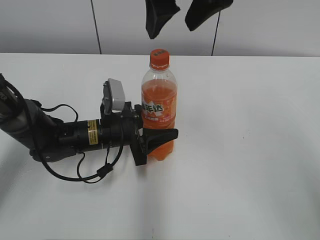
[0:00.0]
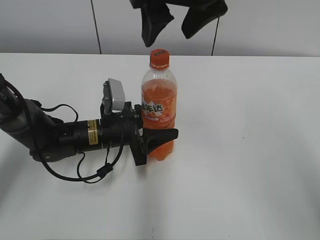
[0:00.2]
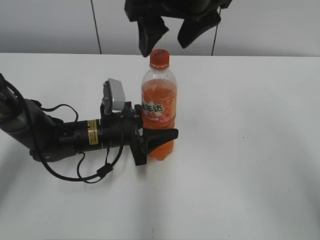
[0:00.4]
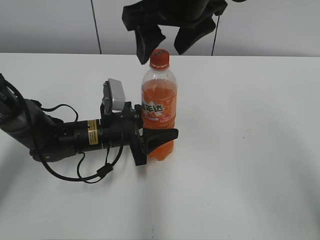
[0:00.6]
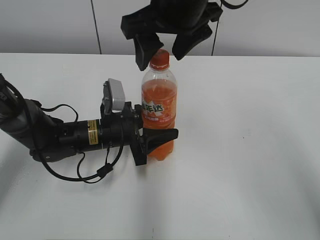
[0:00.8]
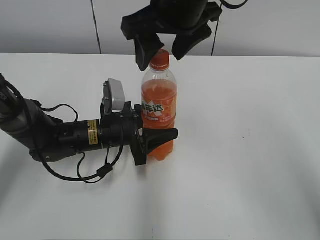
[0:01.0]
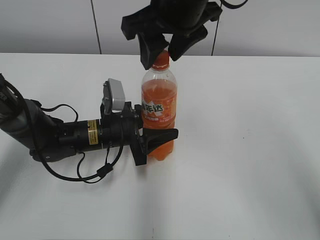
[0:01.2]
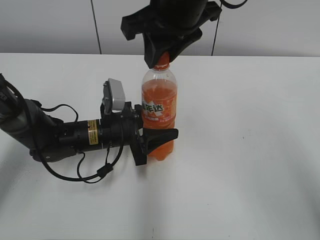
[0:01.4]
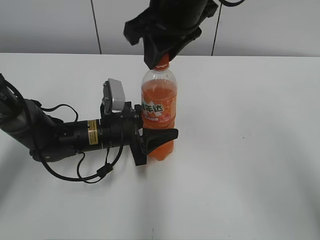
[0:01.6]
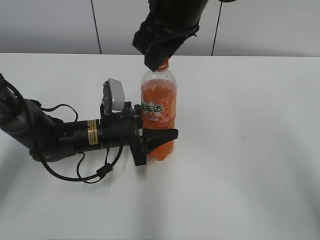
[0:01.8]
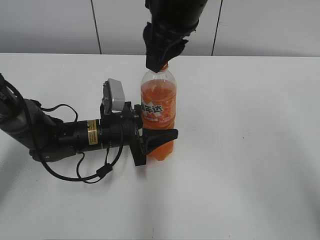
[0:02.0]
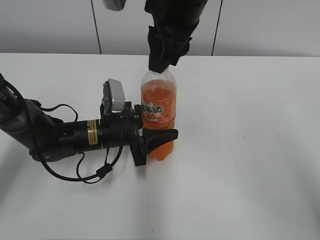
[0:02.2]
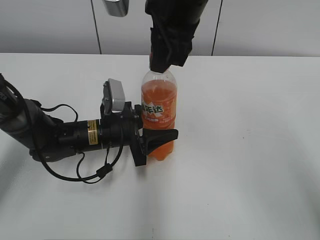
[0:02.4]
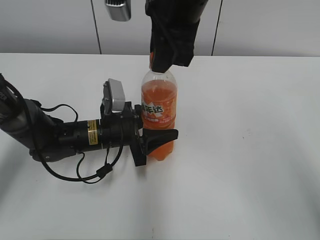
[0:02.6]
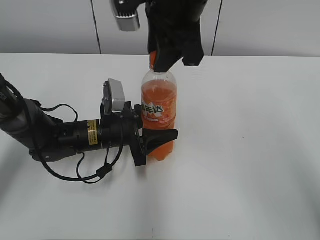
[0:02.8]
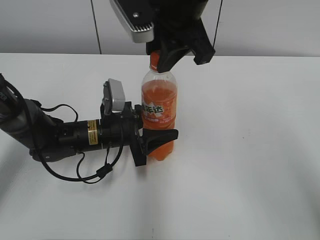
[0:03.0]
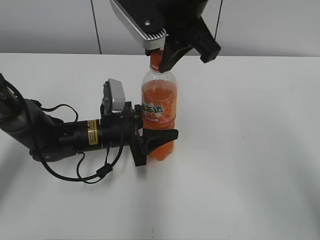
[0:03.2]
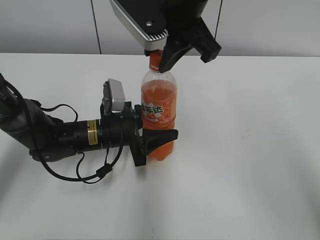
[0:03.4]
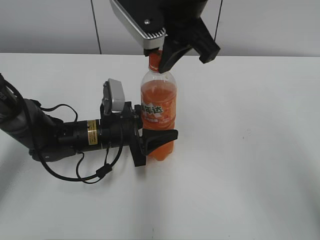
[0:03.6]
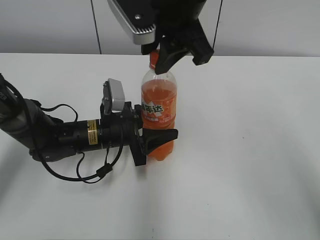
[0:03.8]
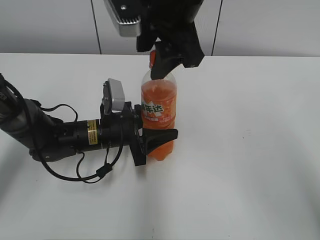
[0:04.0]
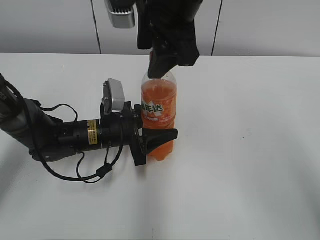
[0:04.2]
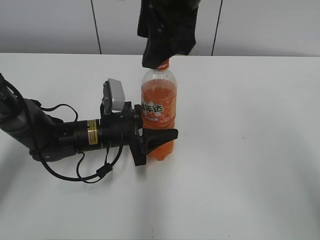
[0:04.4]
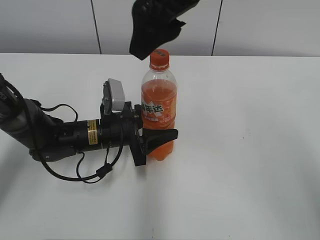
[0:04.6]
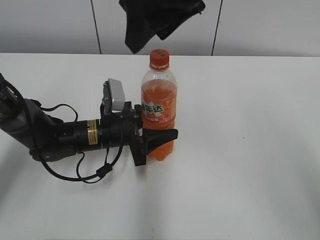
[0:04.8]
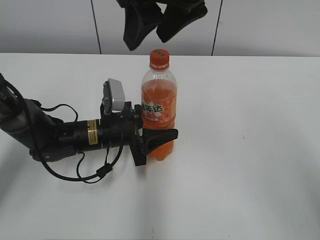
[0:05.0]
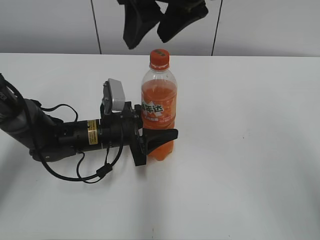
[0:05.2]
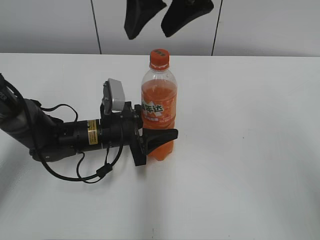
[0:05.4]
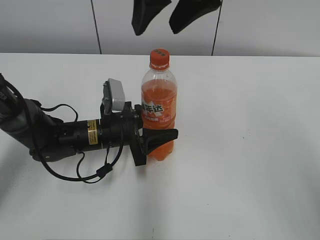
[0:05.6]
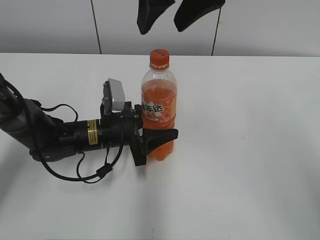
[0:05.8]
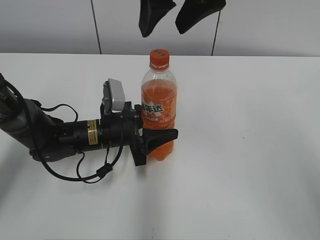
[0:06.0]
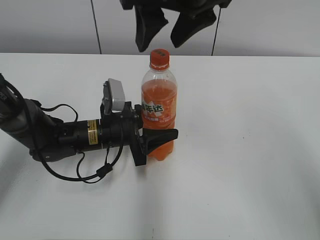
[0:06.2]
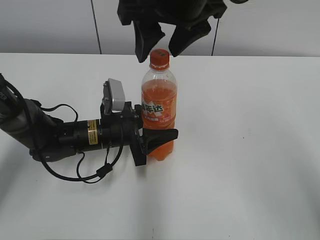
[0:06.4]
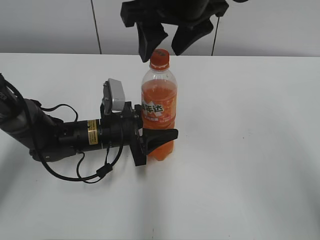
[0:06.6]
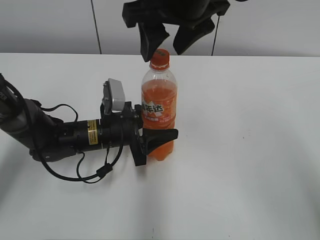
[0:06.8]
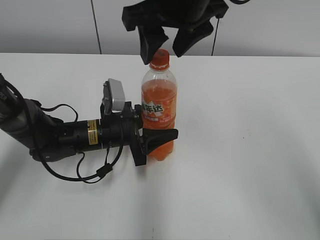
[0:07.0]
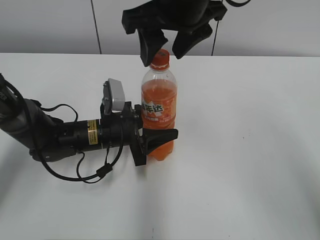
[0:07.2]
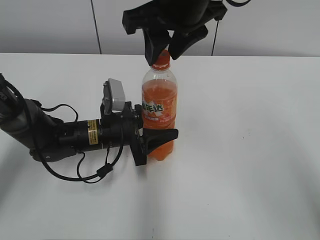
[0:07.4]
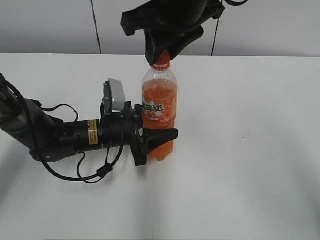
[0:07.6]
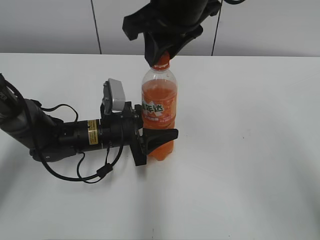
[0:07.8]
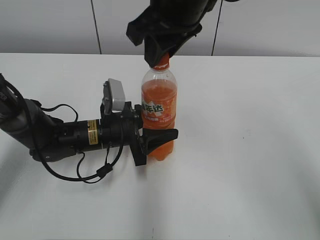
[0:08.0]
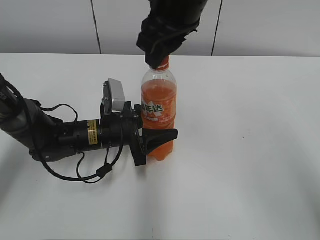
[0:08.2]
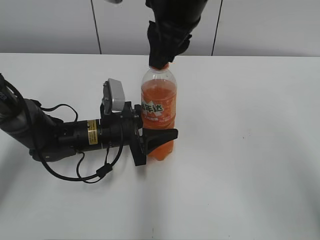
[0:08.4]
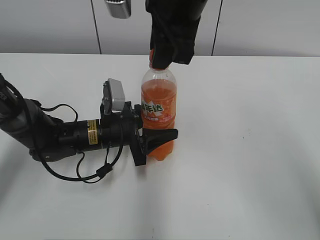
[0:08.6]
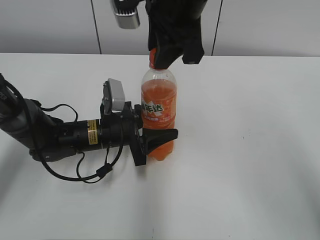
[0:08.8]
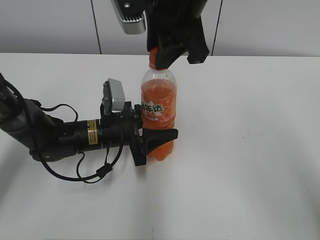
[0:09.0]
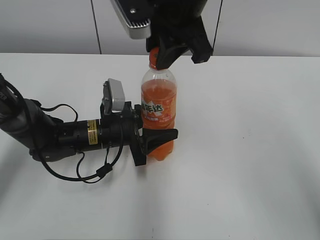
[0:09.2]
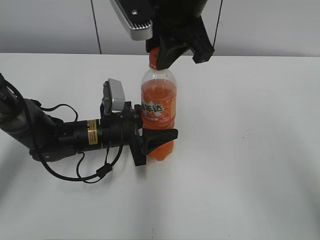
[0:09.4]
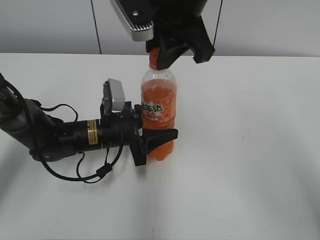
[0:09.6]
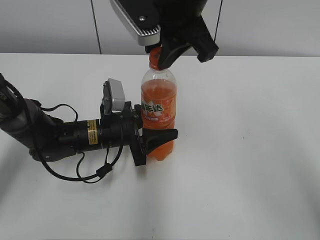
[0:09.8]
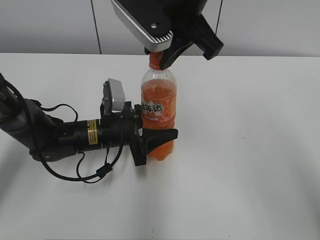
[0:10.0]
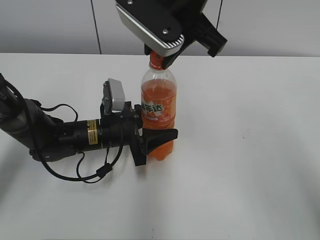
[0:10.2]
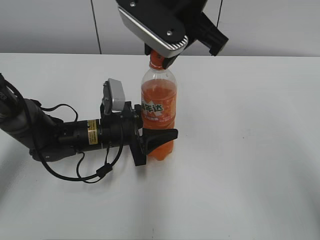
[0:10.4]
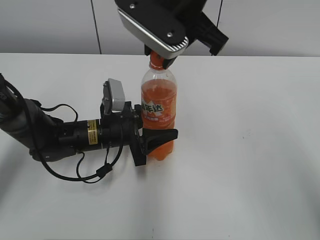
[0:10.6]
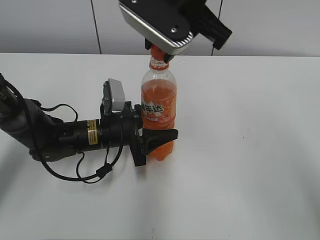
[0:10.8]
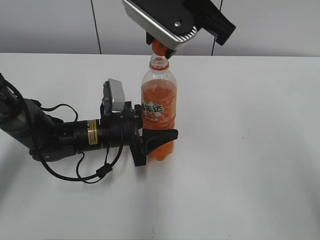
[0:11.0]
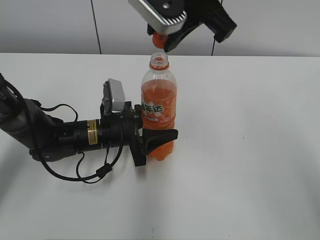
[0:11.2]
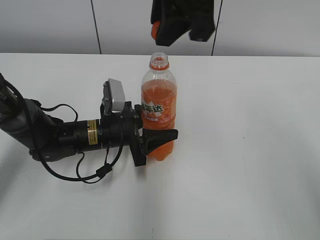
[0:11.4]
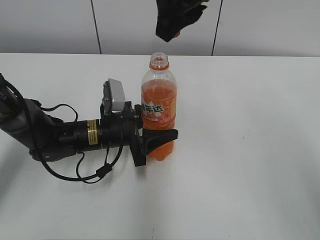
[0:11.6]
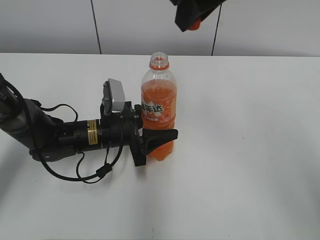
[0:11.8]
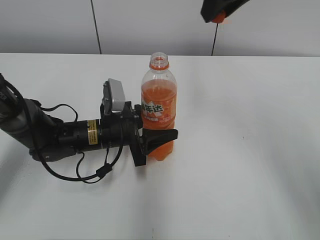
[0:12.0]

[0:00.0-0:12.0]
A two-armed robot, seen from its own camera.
0:00.0 to 0:01.6: The right gripper changes place by some 5 cm, and closes.
0:03.0 to 0:04.4: The right gripper opens.
0:06.0 to 0:07.6: The right gripper shifts by some 5 cm, and closes its fingers.
0:10.4 to 0:12.0: The right gripper moves to the right, some 10 cm.

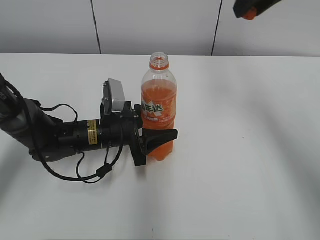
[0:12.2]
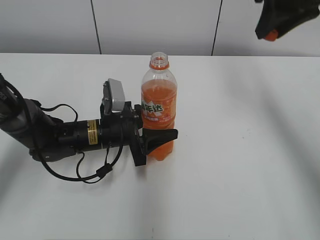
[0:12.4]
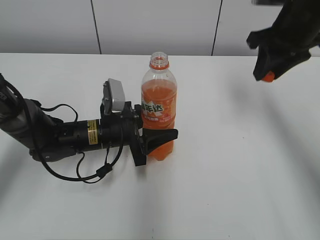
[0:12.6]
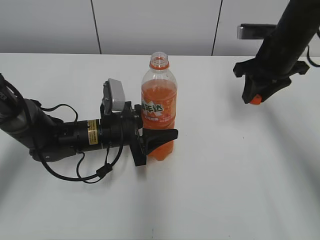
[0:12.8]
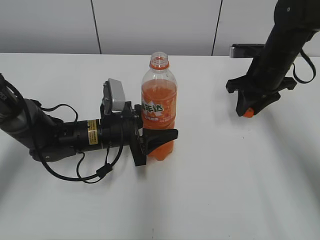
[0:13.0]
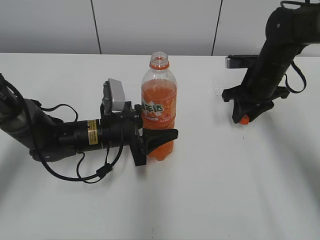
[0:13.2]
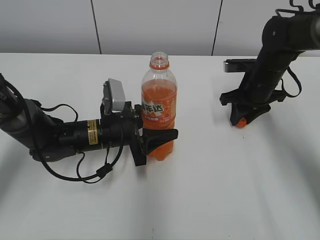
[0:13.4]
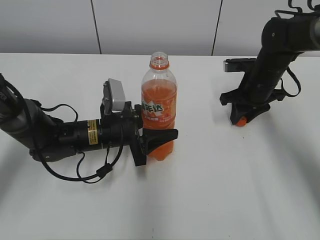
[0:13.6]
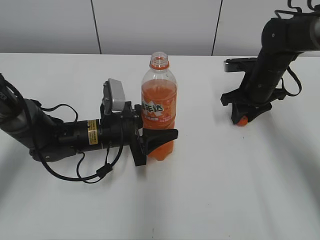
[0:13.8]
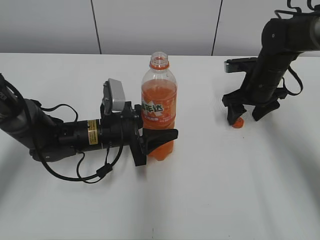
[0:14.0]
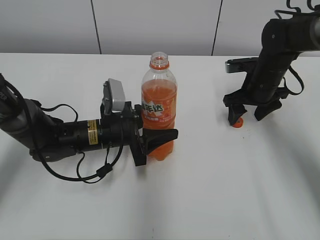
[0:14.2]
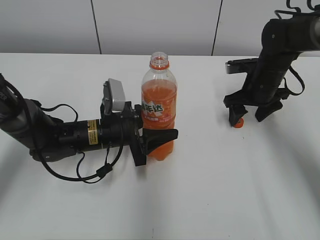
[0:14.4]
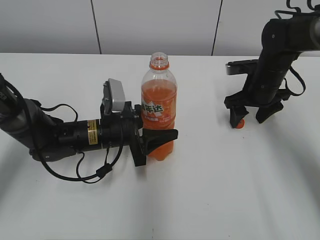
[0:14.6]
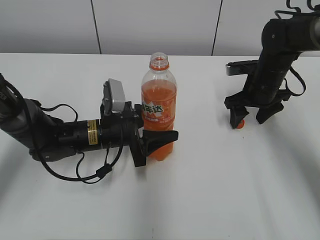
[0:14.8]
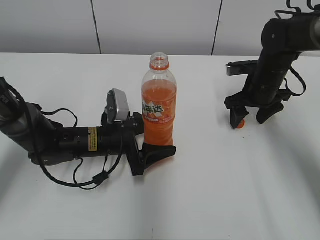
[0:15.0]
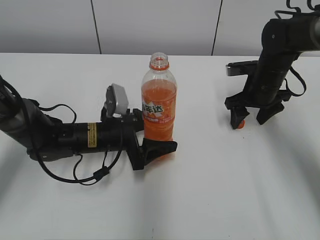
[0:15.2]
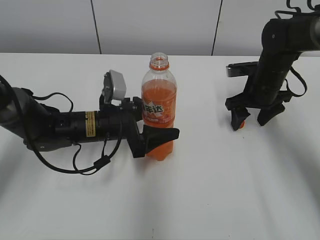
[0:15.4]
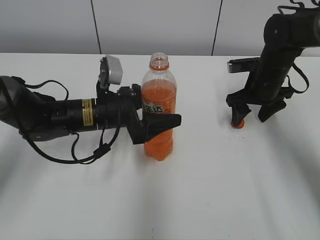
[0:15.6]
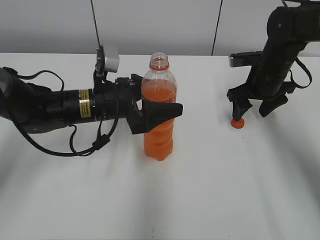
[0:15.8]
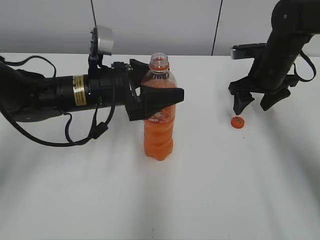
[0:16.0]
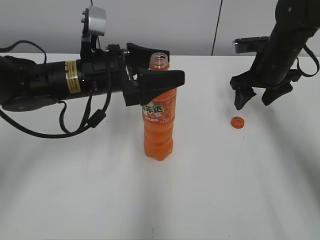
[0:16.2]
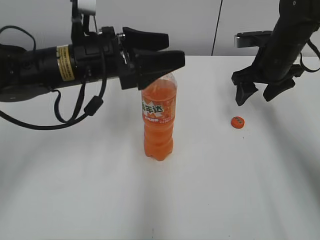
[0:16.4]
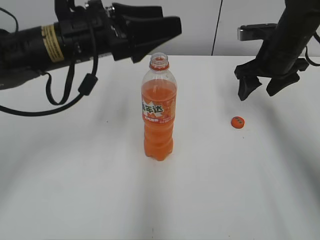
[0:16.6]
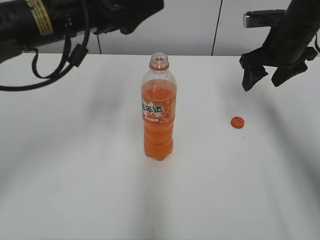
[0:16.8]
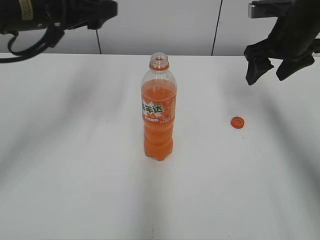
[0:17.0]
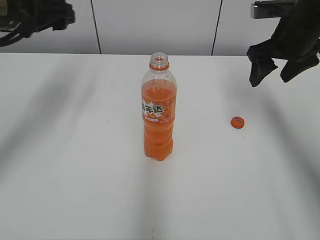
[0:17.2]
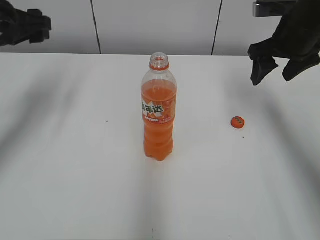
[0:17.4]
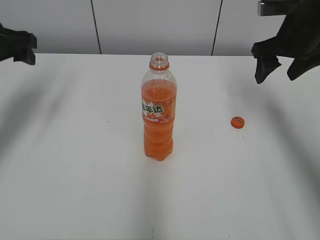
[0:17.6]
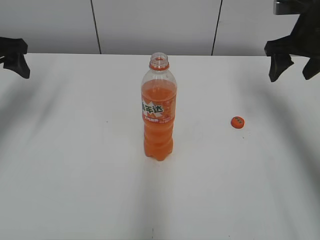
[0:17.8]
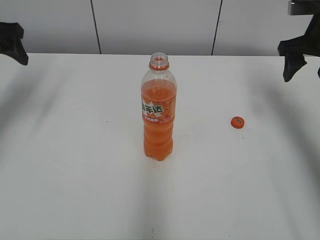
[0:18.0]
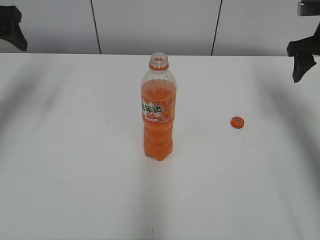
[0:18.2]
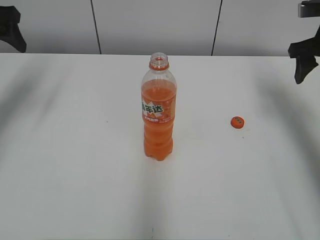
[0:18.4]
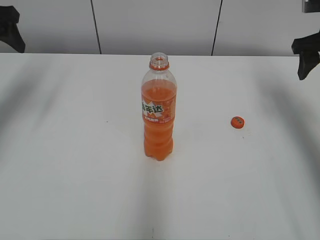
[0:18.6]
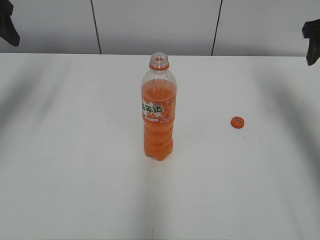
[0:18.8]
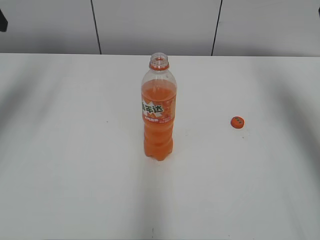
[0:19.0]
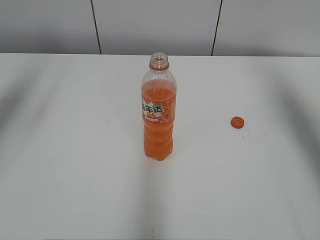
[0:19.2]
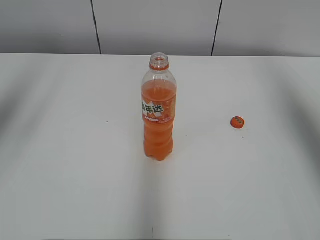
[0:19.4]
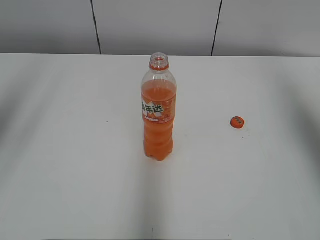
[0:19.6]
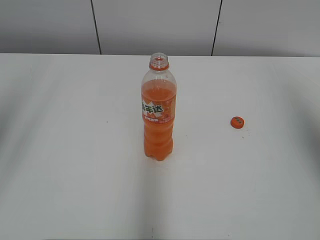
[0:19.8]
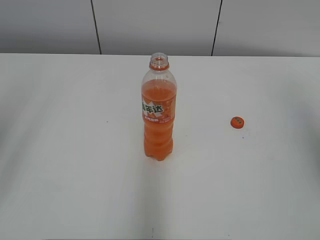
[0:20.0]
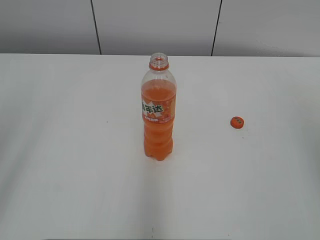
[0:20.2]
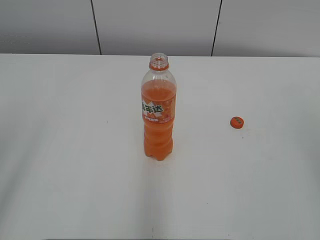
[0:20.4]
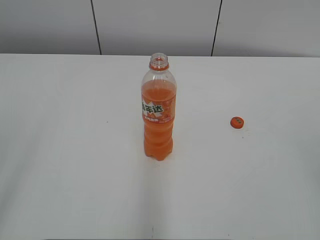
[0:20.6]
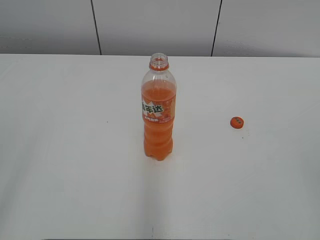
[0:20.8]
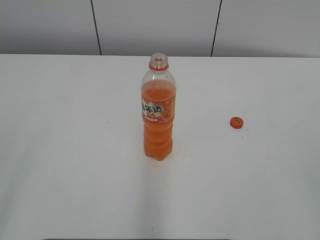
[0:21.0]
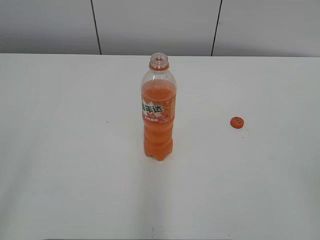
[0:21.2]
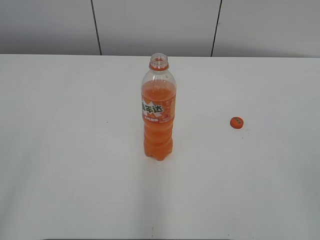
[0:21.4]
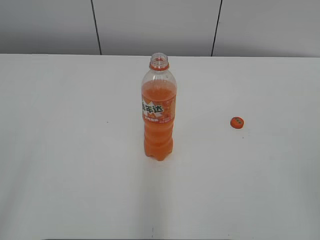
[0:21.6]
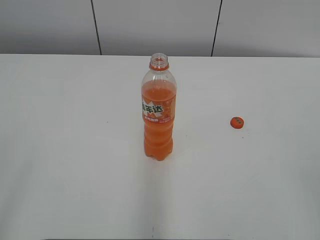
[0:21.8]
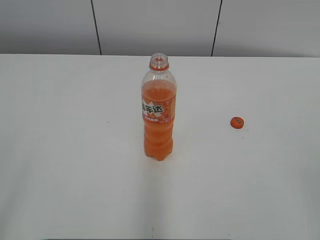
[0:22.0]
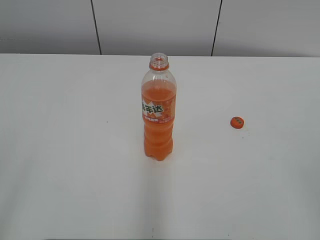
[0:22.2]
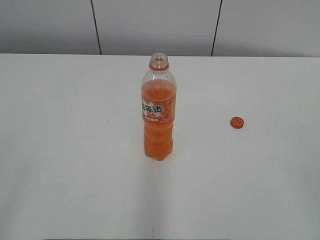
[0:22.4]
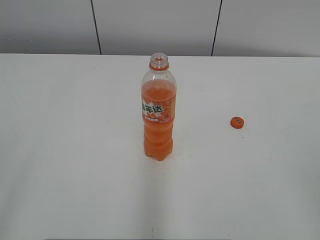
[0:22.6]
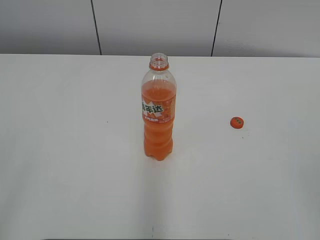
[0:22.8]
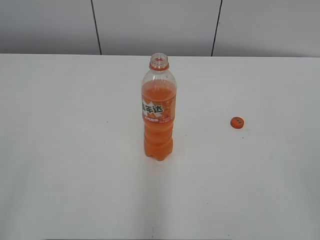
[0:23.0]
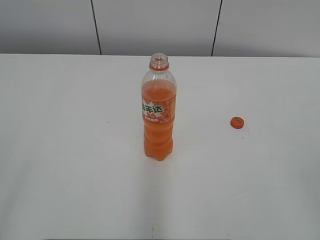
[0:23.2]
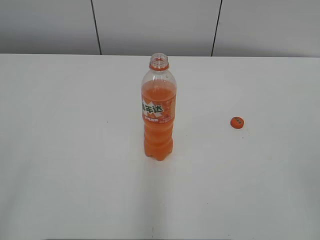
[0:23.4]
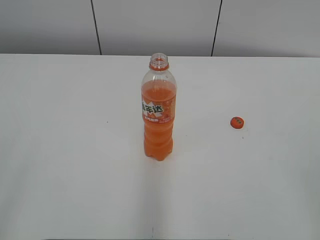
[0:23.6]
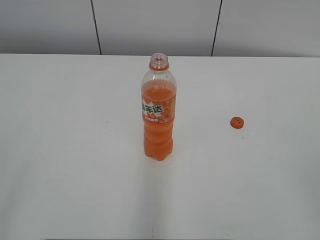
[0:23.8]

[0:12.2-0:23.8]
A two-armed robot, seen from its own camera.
Step, 0:12.2 to 0:13.8: Place the bottle cap on the right.
Step, 0:14.2 to 0:14.6: Place the Mirinda with the left hand.
0:12.2 to 0:13.6: The right gripper moves downward, roughly 25 cm.
0:13.6 to 0:15.0: The left gripper opens its fingers. Meanwhile the right gripper opens its fingers.
0:15.0 to 0:16.6: The left gripper shifts about 20 cm upward. Meanwhile the right gripper shifts some 10 cm upward.
0:16.6 to 0:18.0: The right gripper goes some 10 cm to the right and upward. The left gripper heads to the left, covering roughly 20 cm.
0:18.0 to 0:19.4: Both grippers move upward and backward, about 15 cm.
0:19.4 to 0:21.0: The two grippers go roughly 30 cm backward.
0:22.4 to 0:23.8: Both grippers stay put.
